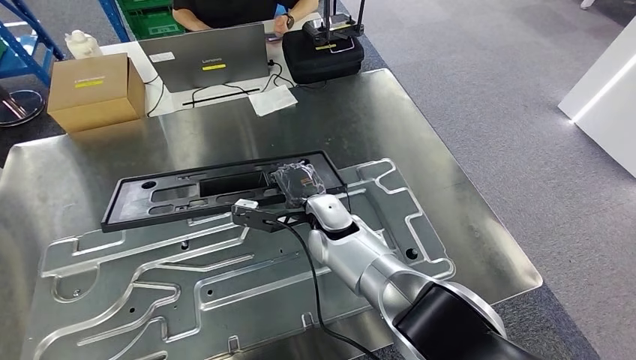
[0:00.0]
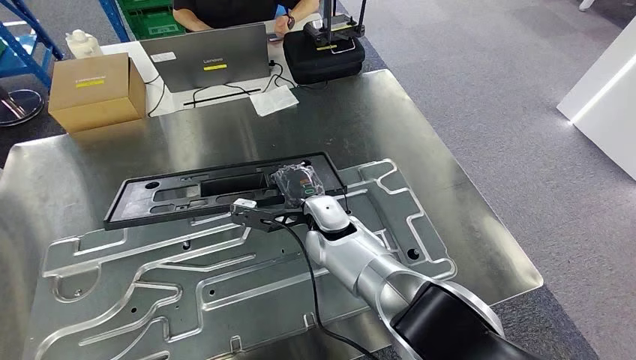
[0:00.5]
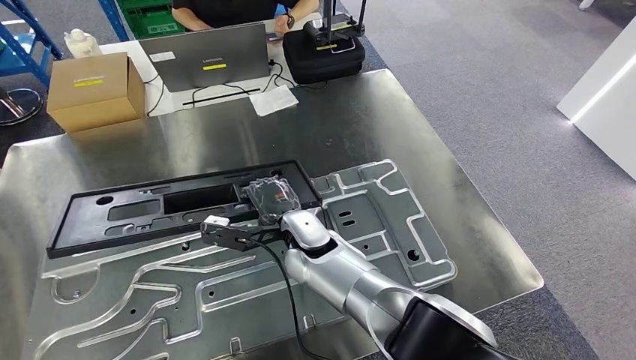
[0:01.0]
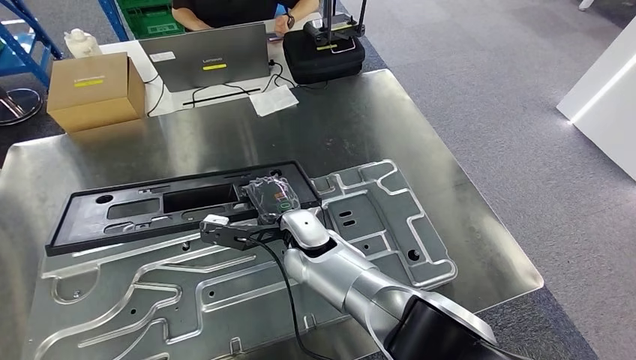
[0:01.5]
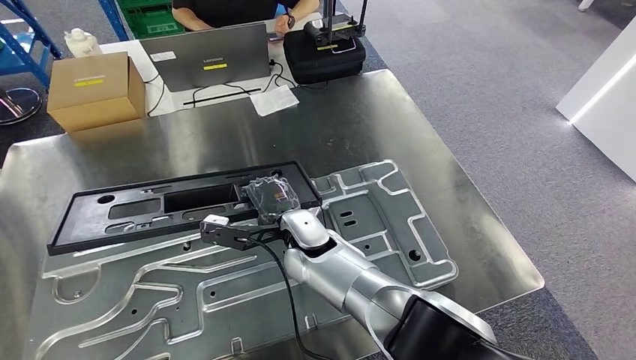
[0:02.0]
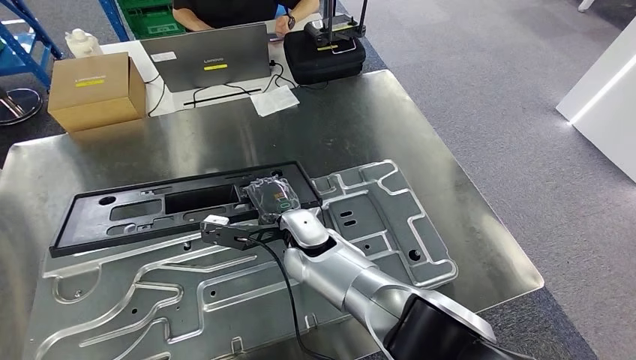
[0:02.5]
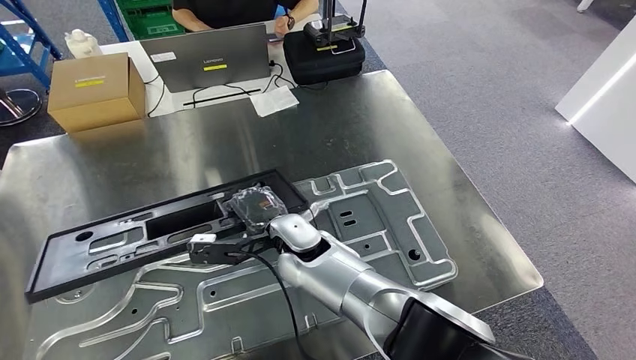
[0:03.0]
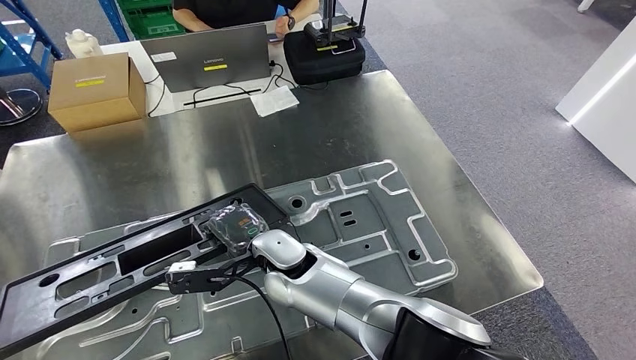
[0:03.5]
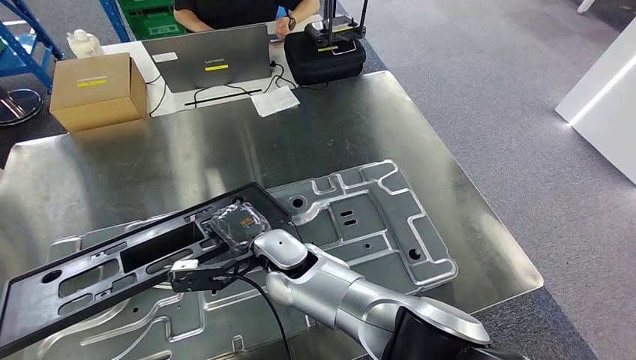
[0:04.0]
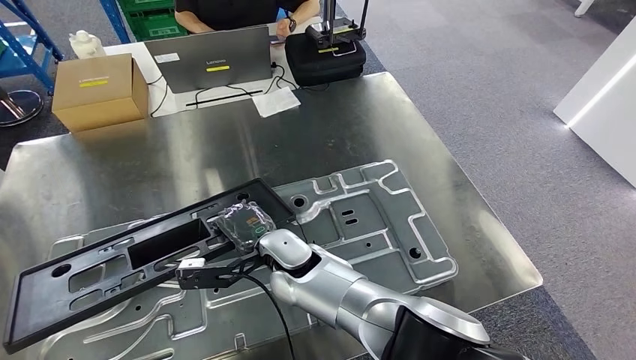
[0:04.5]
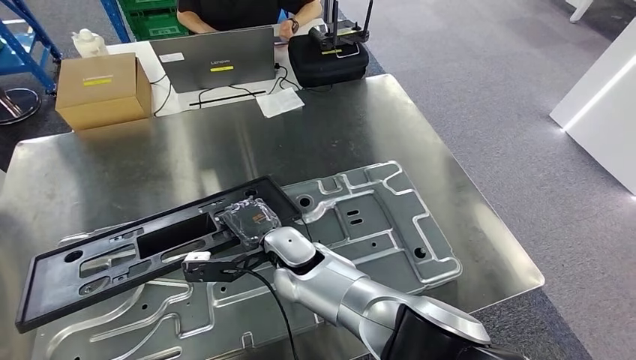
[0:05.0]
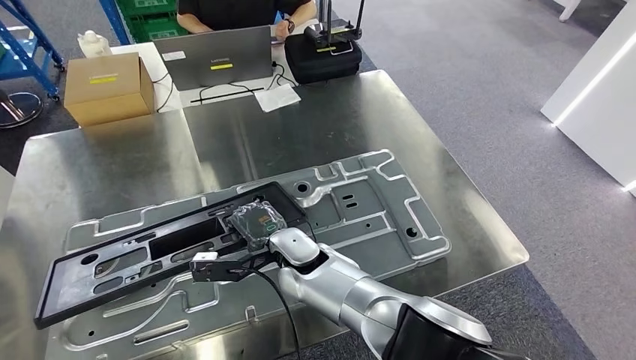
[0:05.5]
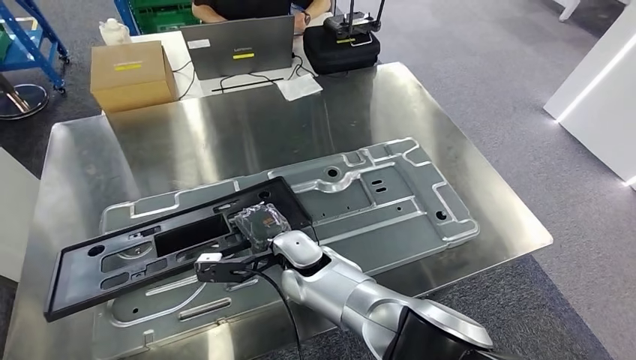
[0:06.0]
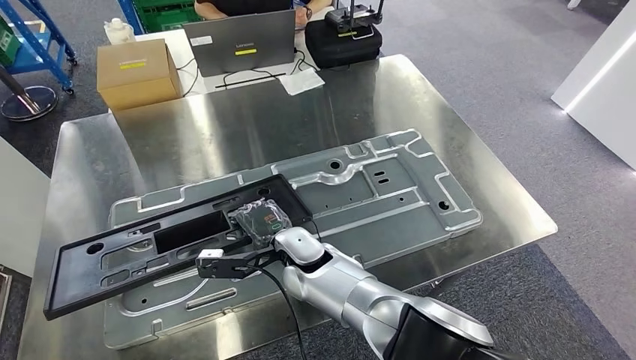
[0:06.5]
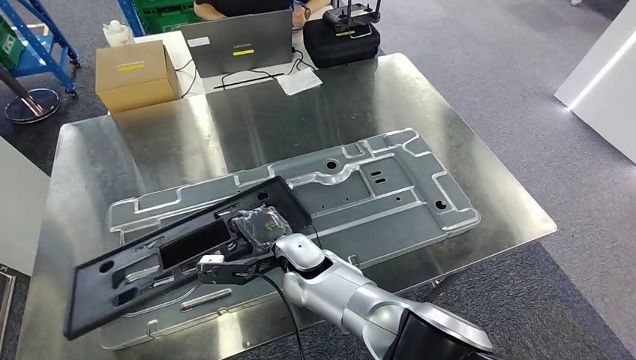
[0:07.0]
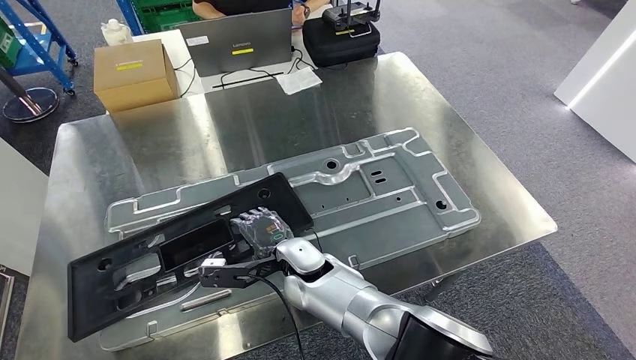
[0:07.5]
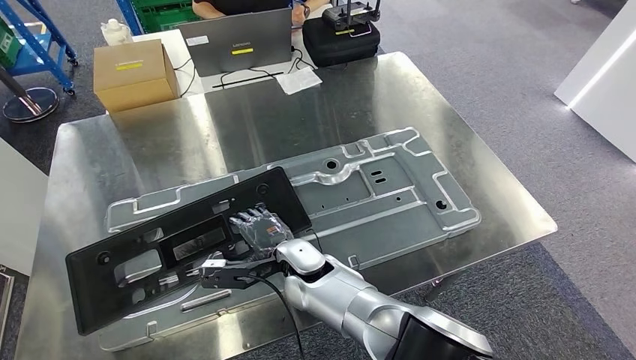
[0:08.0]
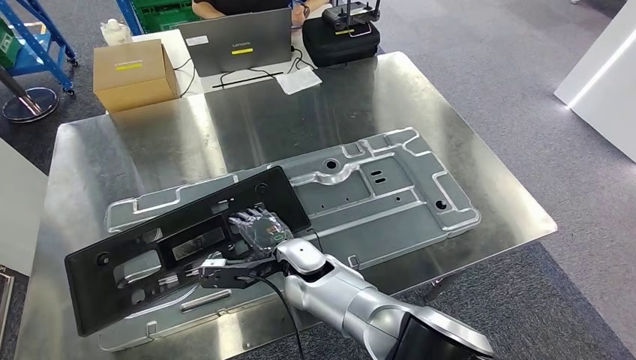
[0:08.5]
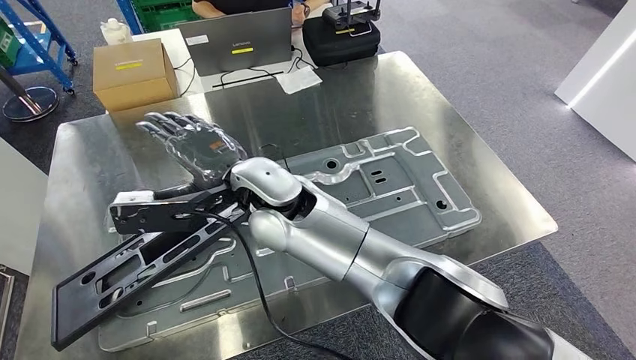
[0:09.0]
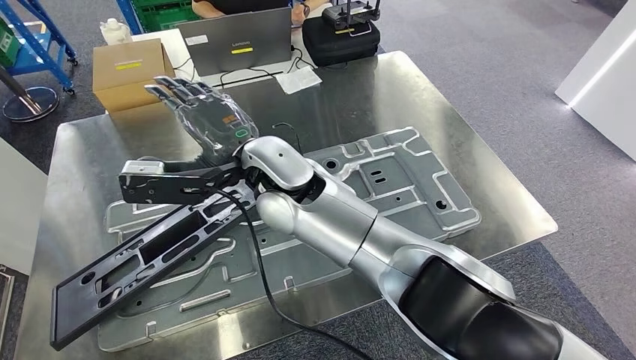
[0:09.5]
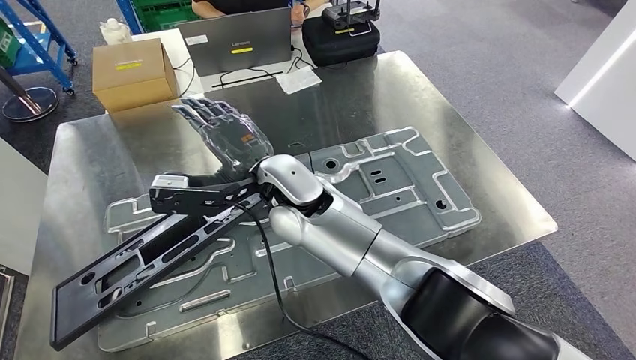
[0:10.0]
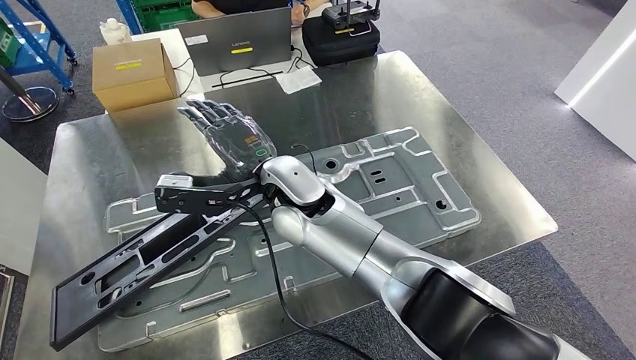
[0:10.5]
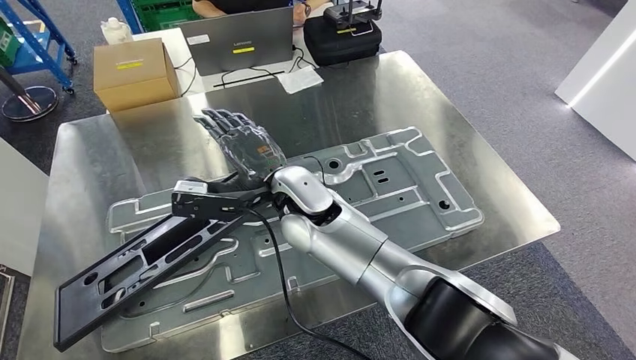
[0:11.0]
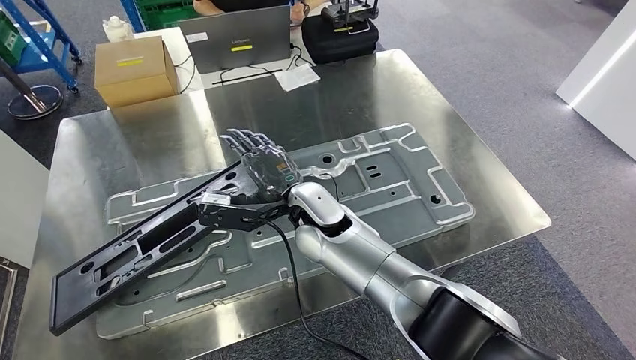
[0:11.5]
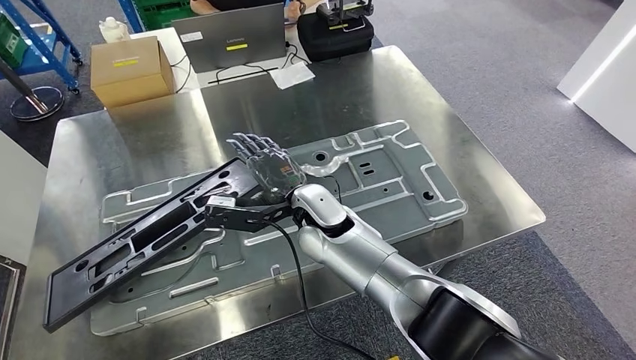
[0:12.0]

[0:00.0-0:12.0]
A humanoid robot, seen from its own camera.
Step, 0:00.0 to 0:10.0: Insert the large material into the corresponding slot on the workbench.
0:00.0 to 0:02.0: The right hand ends up about 5 cm from where it was.

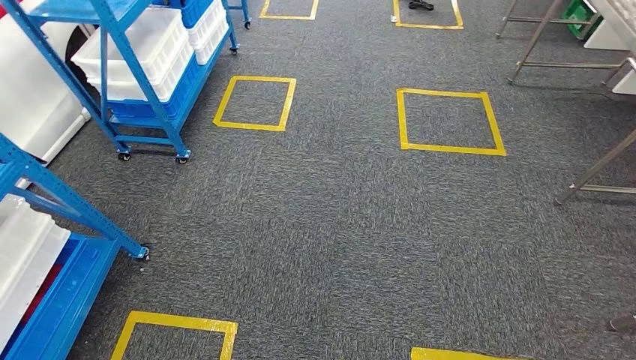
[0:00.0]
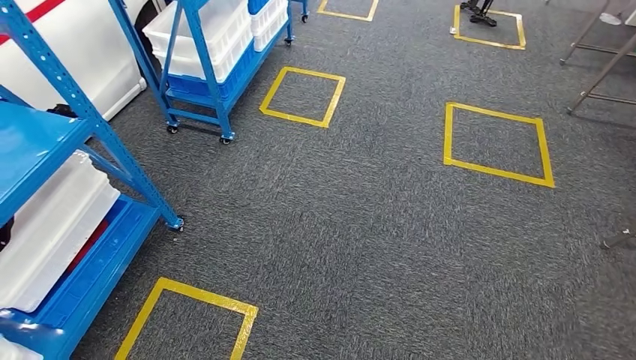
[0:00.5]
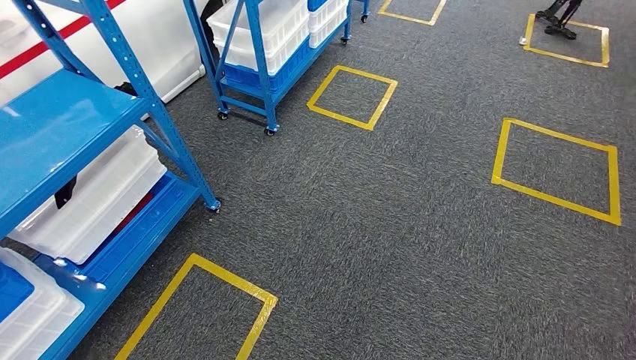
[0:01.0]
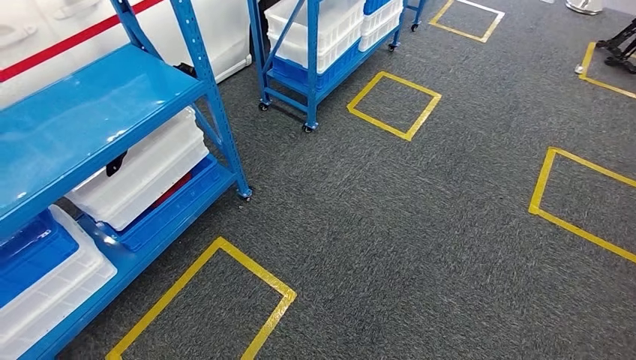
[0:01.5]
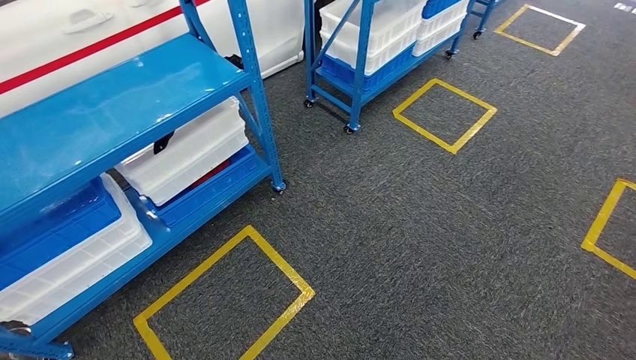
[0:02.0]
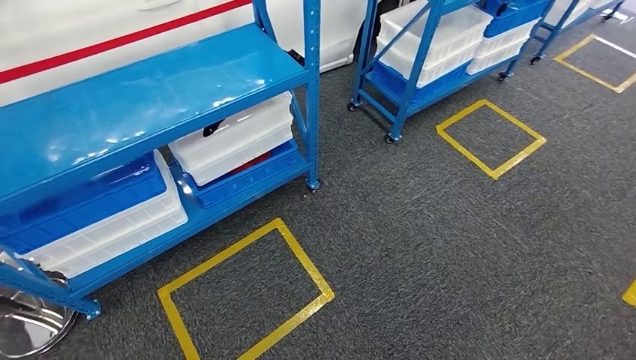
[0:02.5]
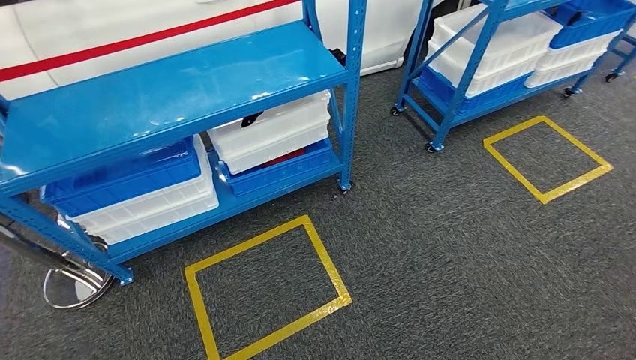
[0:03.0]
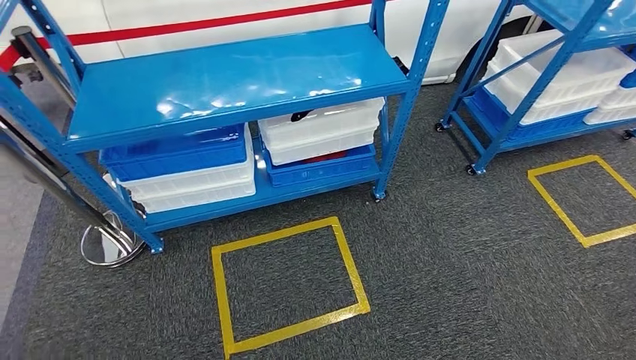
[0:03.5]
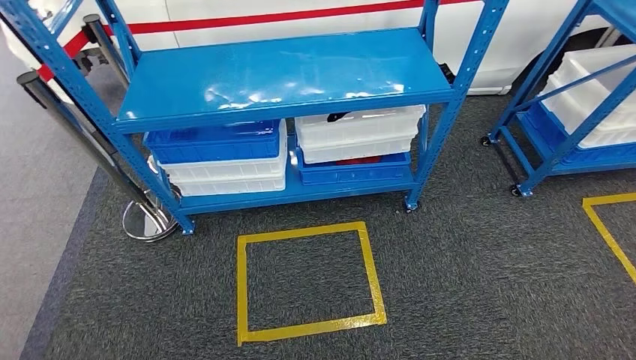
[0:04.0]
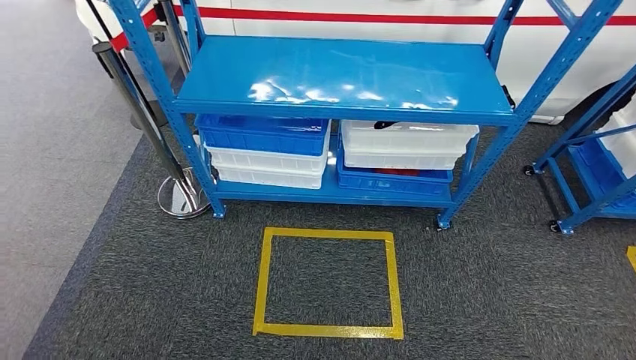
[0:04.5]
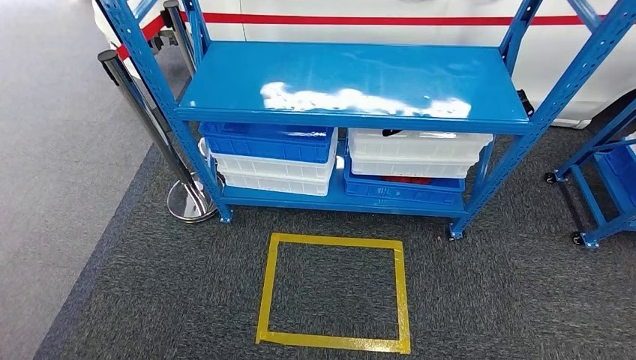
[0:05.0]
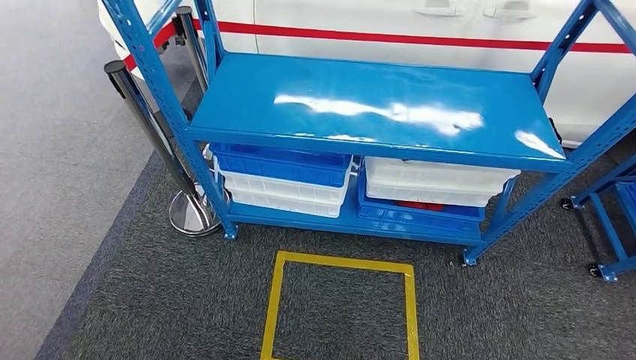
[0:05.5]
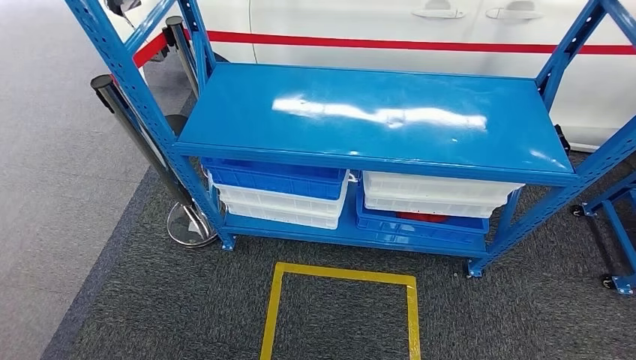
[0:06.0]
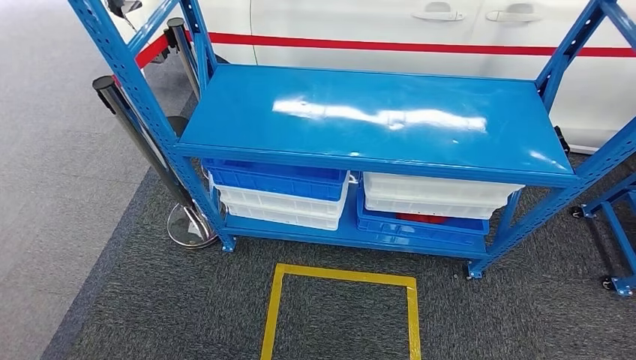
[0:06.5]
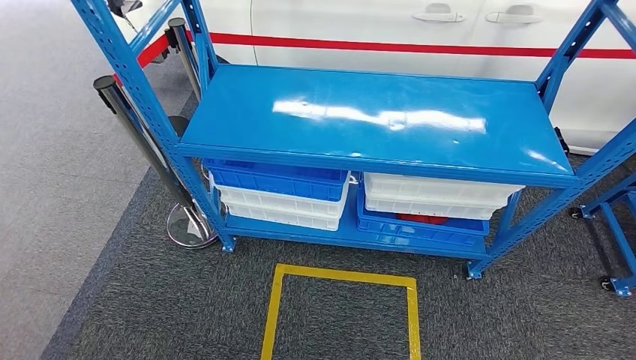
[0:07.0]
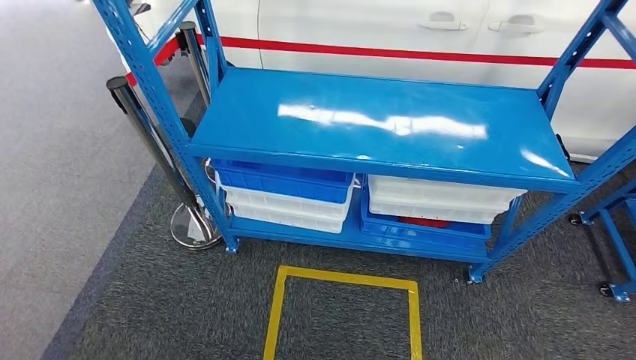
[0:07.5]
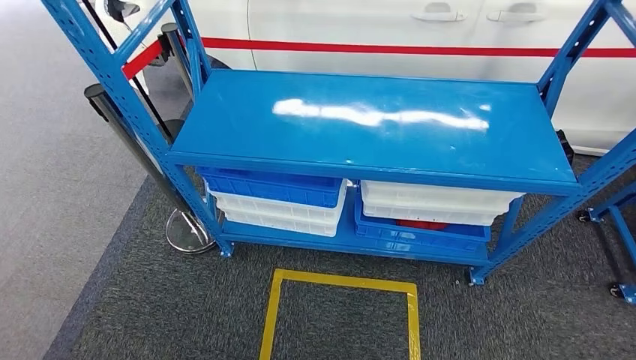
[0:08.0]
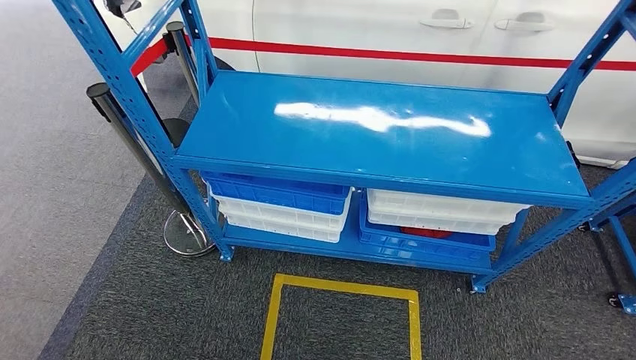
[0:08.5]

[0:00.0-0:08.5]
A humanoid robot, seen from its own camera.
Step, 0:00.0 to 0:08.5: Move to the initial position of the shelf.
